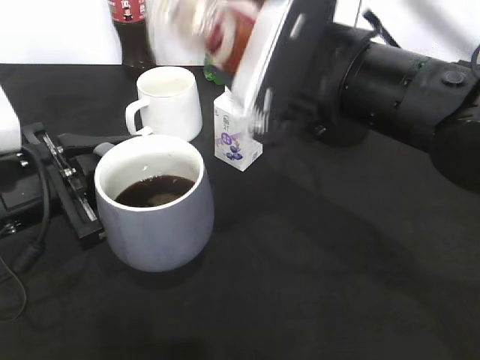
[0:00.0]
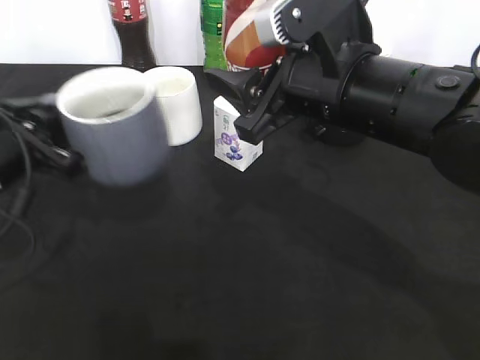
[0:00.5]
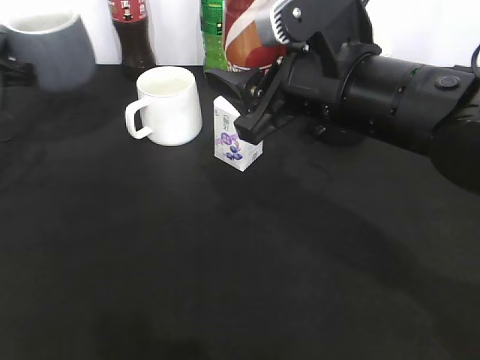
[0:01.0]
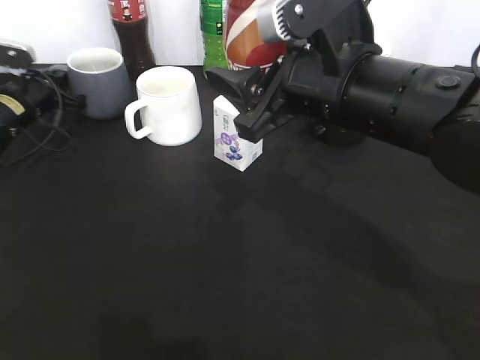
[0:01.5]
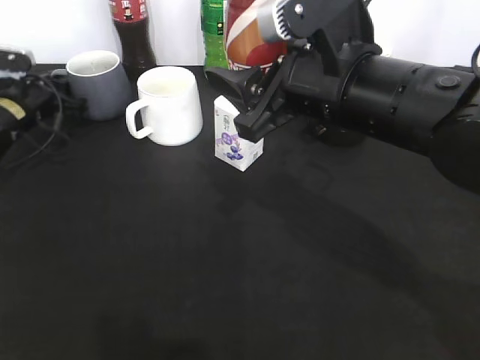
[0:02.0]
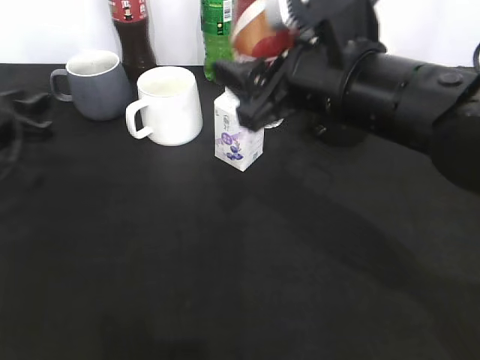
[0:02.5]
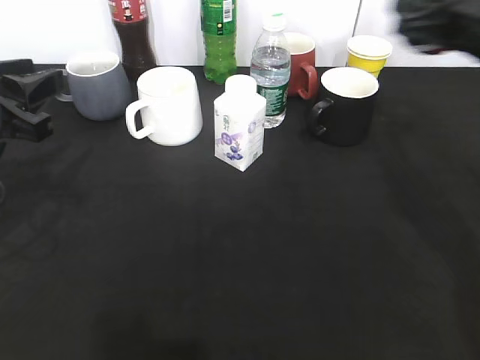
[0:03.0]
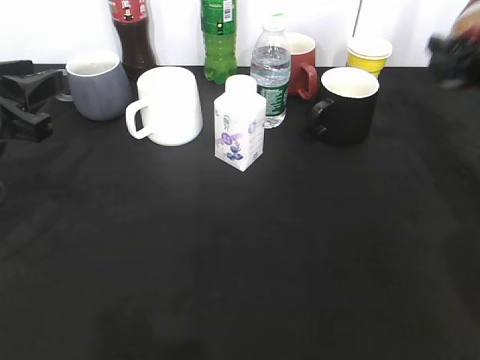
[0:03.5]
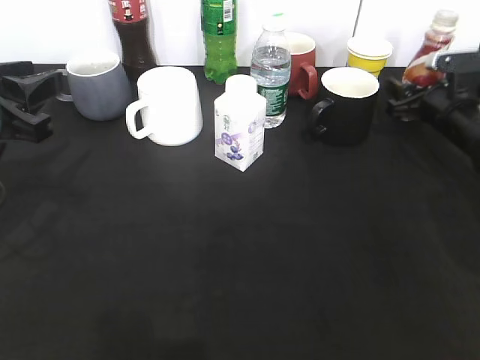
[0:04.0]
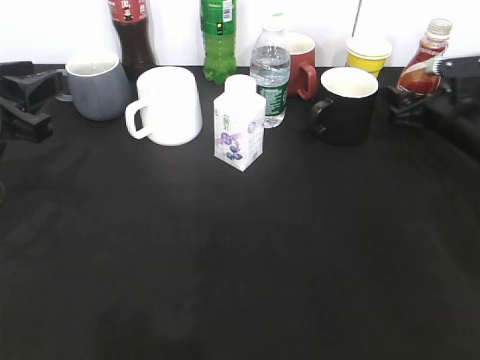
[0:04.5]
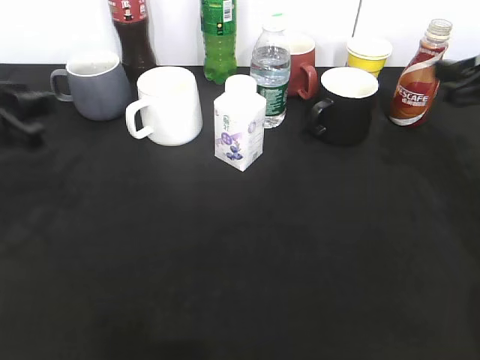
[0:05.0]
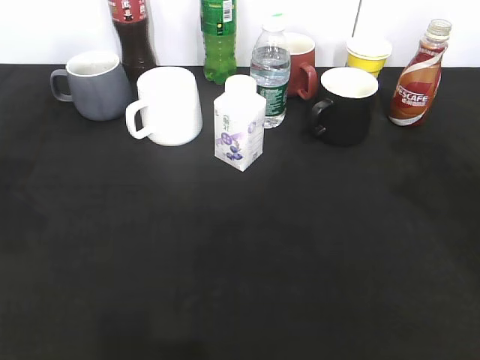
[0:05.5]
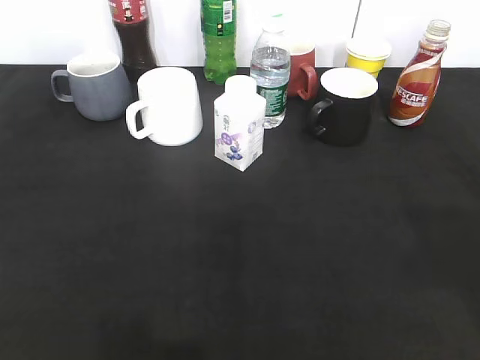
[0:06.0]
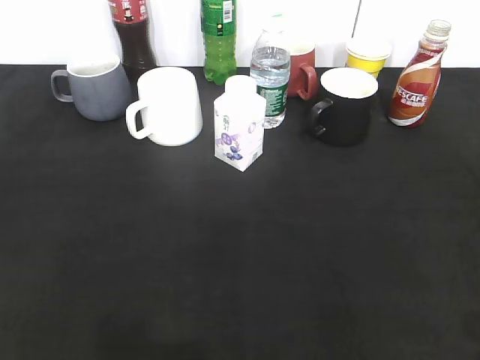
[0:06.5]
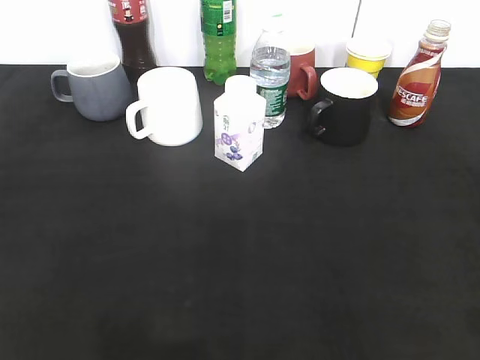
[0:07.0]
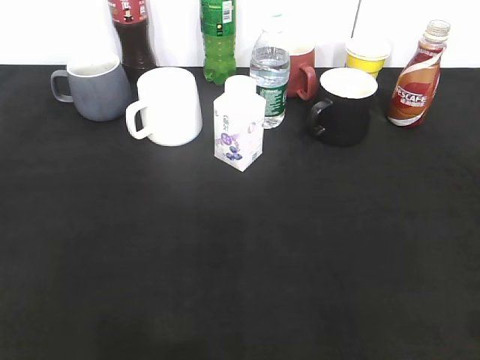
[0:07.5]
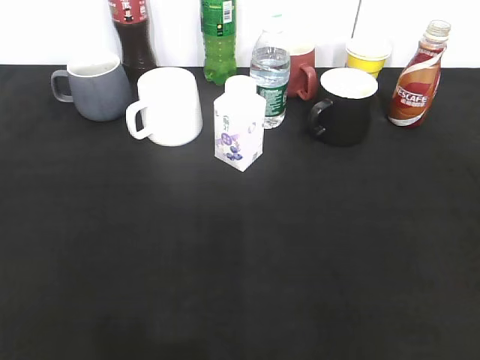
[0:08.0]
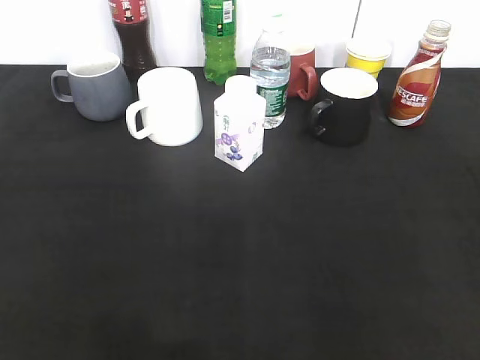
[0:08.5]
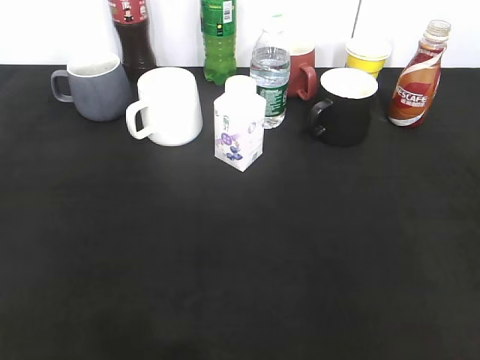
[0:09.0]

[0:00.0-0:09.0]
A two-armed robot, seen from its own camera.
Step, 0:00.5 to 0:02.5: Place the grey cup on the table with left gripper.
Step, 0:03.0 to 0:05.0: Place the coffee bottle on the table with right gripper.
0:00.0 to 0:02.0: The left gripper goes roughly 25 cm forward and to the left, and opens its fingers.
0:02.0 to 0:04.5: The right gripper shifts roughly 30 cm to the right, forward and downward, and opens; the left gripper goes some 25 cm backward and upward.
0:04.5 to 0:07.0: The left gripper travels backward by approximately 20 cm, while the right gripper moves backward and upward, about 40 cm, and closes.
